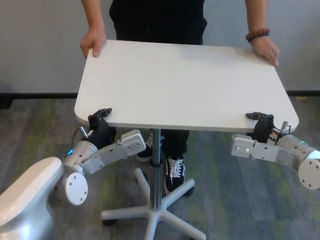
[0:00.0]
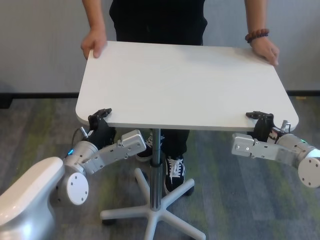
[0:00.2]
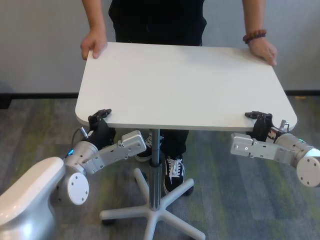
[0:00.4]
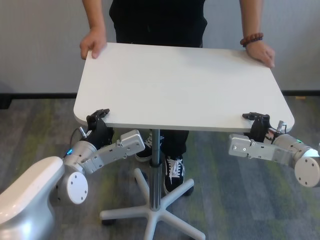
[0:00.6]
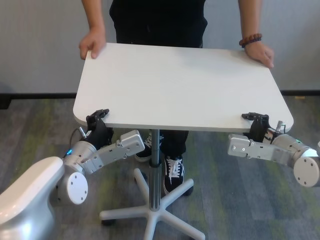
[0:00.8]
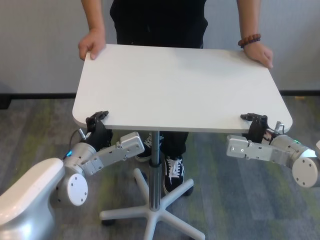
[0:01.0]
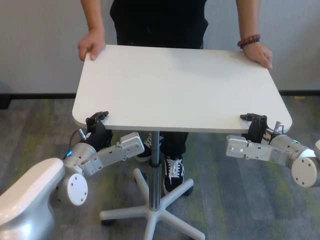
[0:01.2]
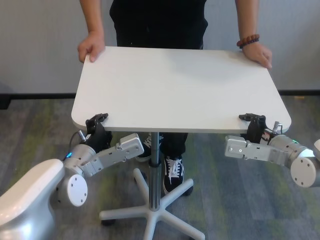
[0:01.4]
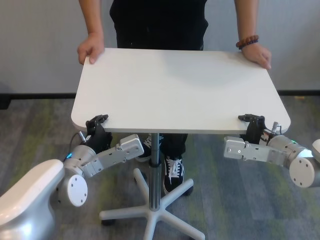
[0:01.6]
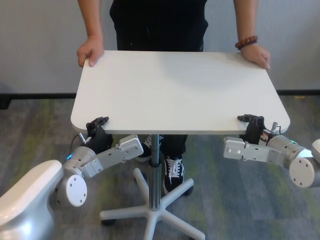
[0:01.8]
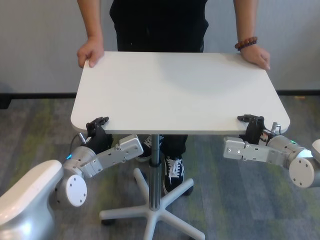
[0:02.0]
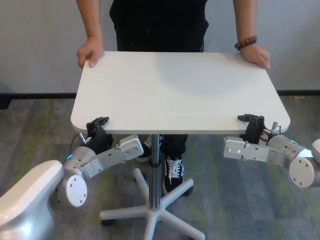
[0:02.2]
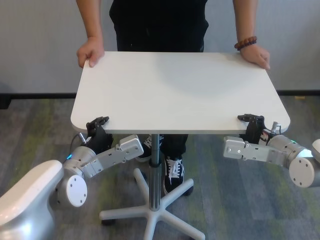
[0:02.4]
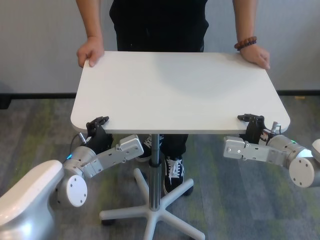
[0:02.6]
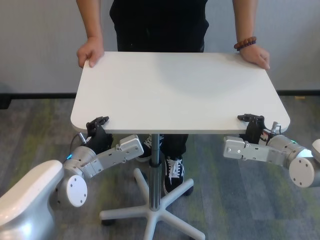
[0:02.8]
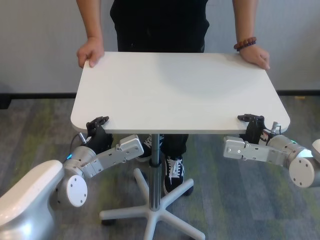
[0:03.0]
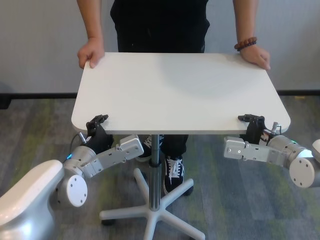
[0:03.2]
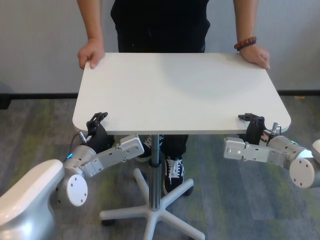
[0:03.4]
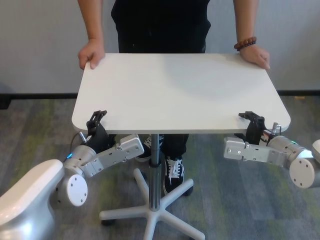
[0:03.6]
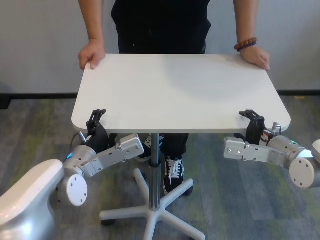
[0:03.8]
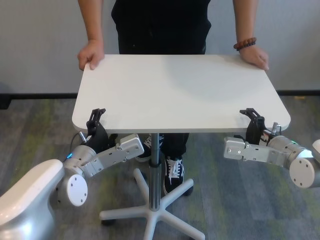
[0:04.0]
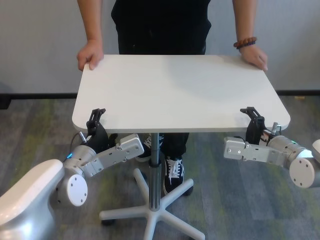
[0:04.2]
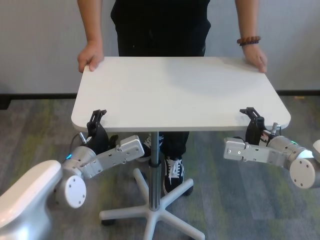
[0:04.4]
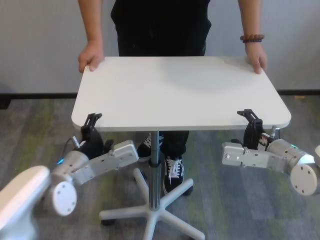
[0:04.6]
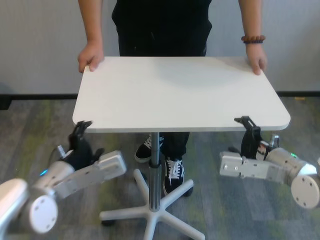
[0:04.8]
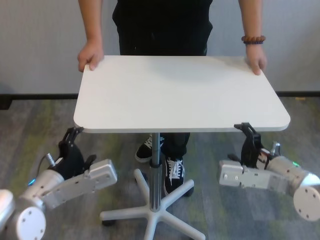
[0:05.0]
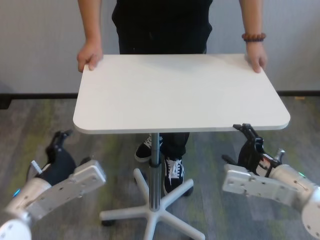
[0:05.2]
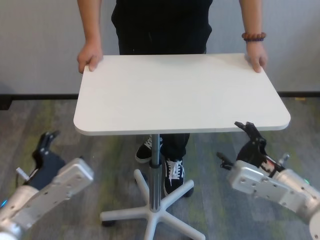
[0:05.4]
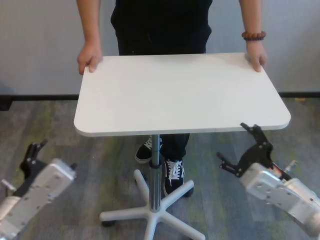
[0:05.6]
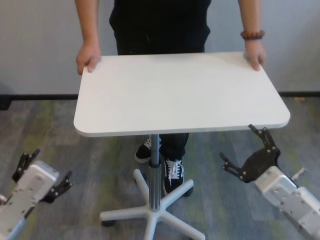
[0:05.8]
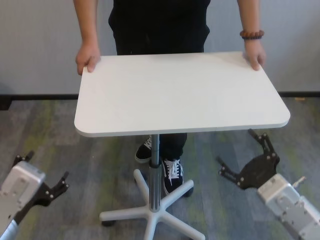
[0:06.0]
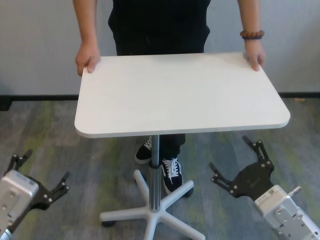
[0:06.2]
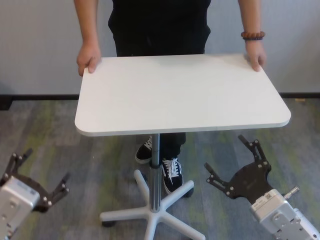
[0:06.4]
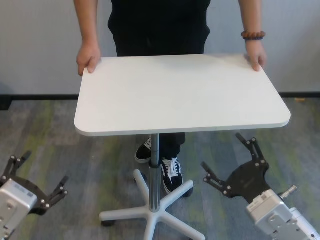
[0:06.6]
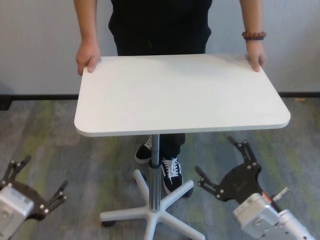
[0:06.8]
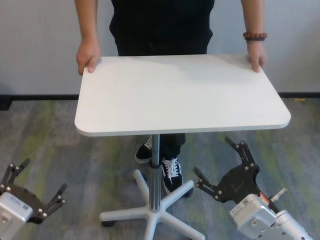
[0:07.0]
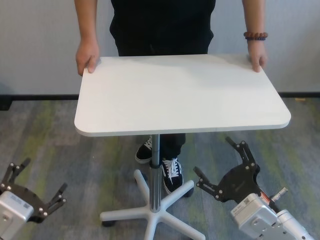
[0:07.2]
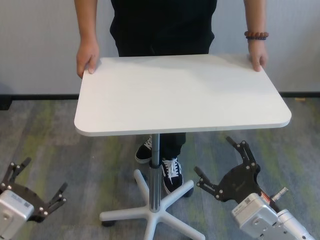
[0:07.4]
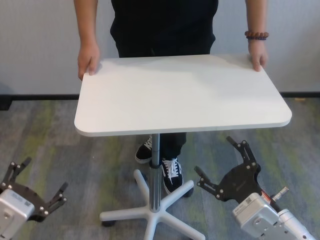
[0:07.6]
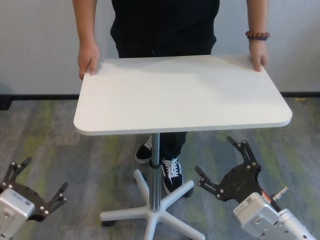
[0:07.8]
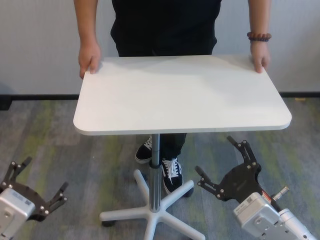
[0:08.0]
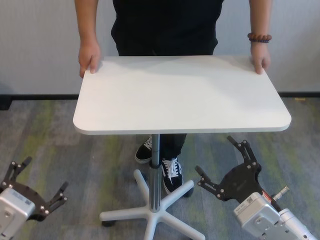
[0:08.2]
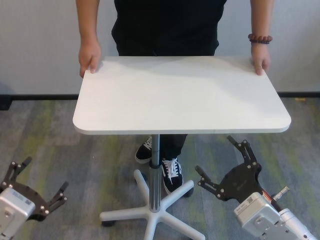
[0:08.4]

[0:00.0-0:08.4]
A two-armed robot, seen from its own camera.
Task of the whole recording: human machine collaborative table moving.
Step, 0:00.0 to 0:04.2: Move the table forward with both grippers.
